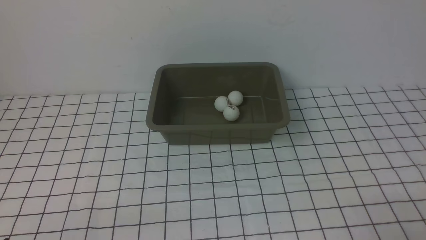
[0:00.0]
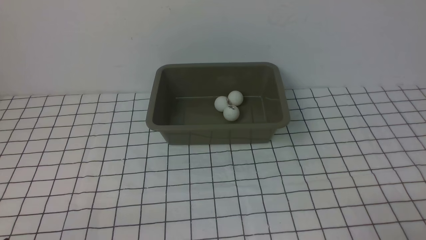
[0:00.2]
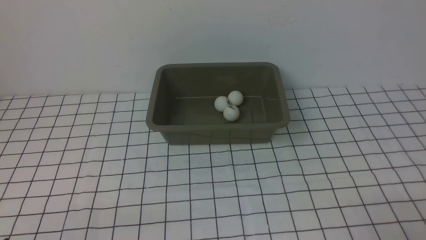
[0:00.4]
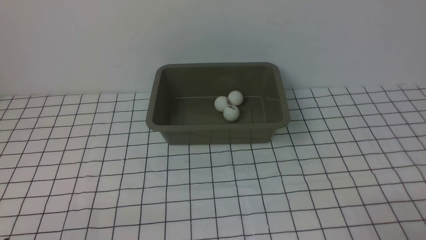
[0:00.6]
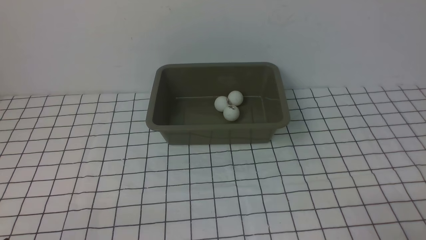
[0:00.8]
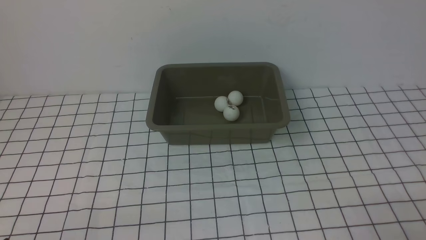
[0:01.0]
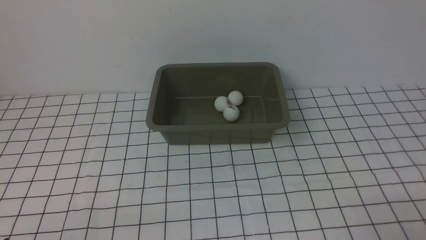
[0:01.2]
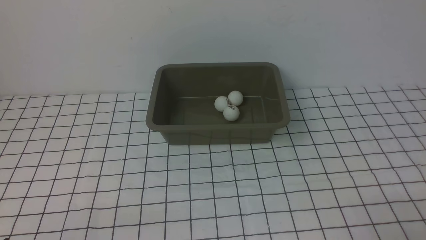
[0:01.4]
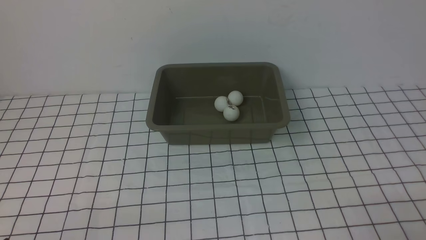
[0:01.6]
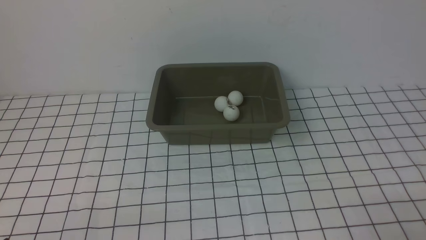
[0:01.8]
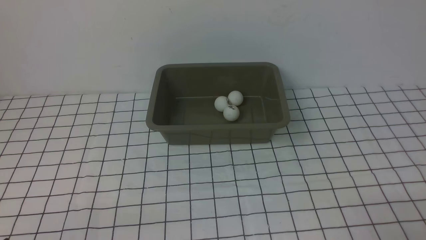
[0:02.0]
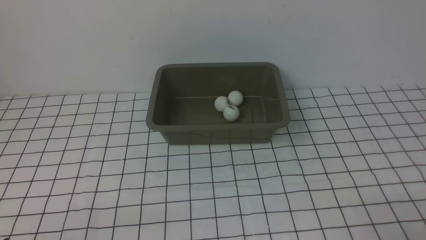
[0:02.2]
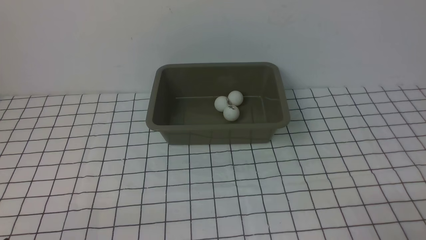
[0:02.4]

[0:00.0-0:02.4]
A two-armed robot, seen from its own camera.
0:00.0 to 0:02.4: The two grippers keep their place.
